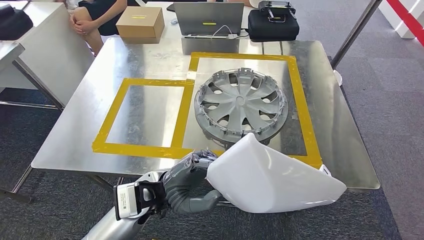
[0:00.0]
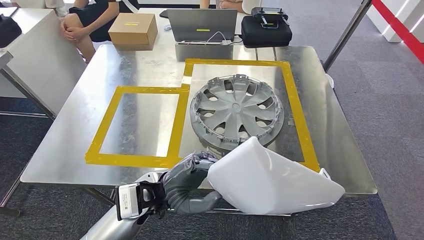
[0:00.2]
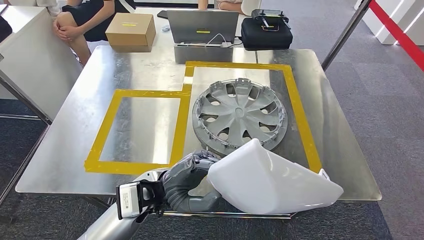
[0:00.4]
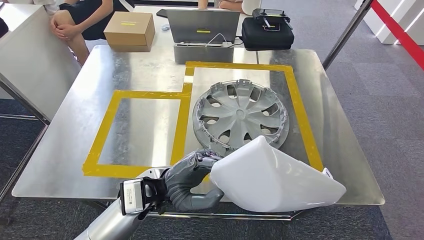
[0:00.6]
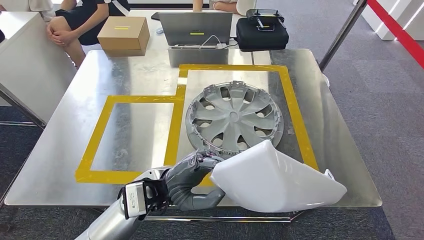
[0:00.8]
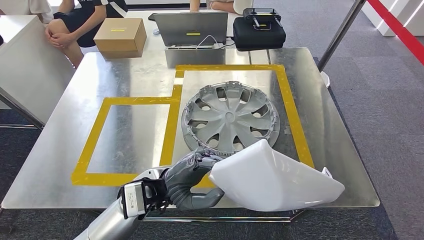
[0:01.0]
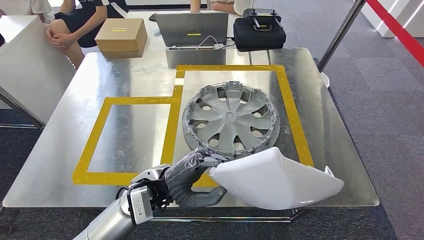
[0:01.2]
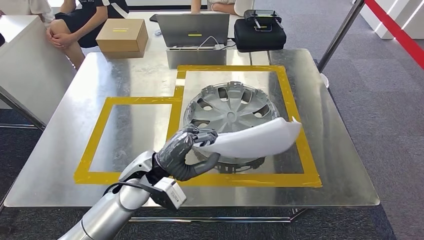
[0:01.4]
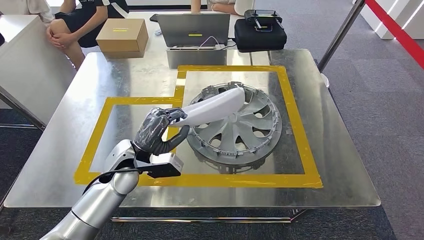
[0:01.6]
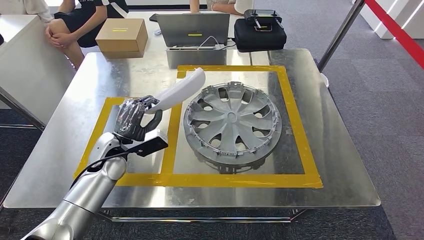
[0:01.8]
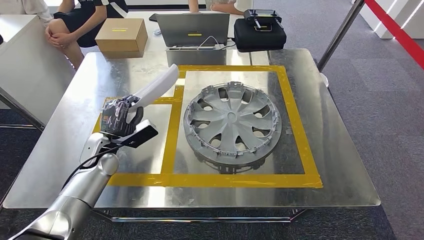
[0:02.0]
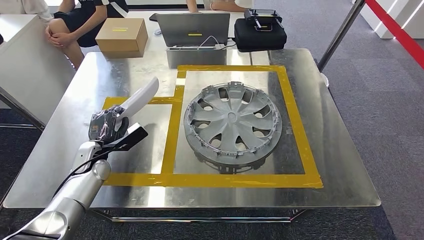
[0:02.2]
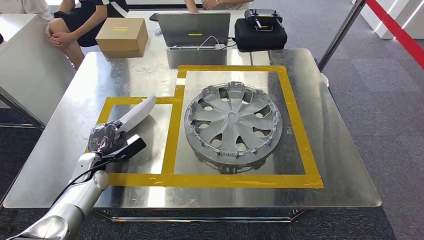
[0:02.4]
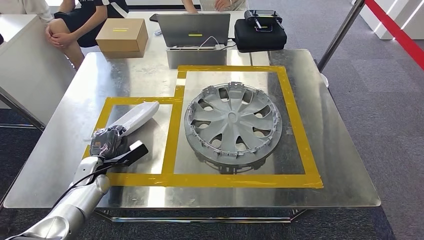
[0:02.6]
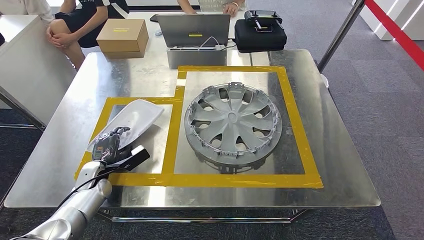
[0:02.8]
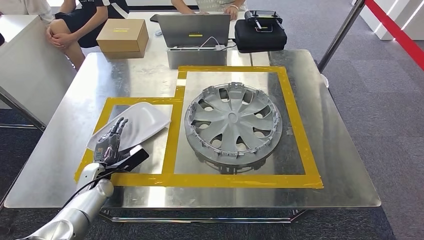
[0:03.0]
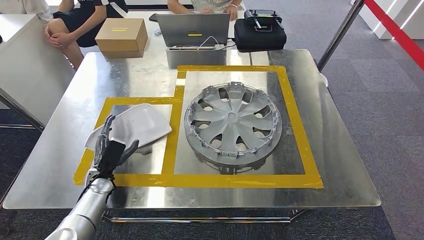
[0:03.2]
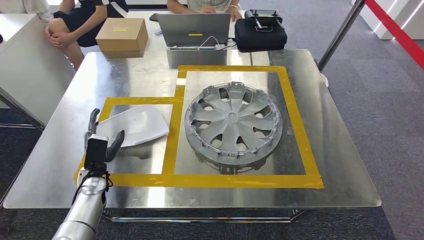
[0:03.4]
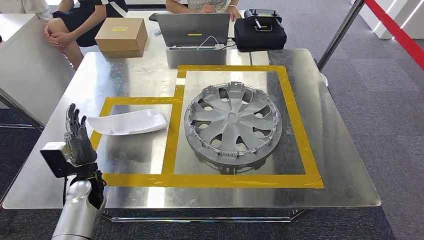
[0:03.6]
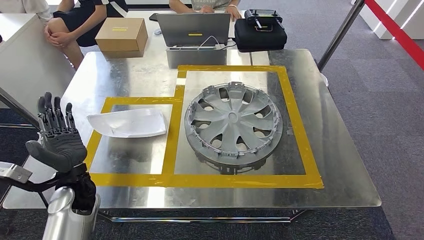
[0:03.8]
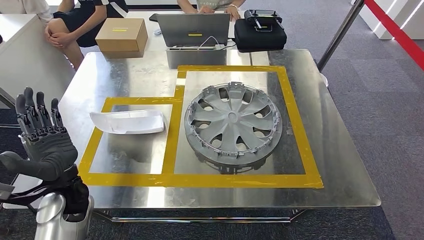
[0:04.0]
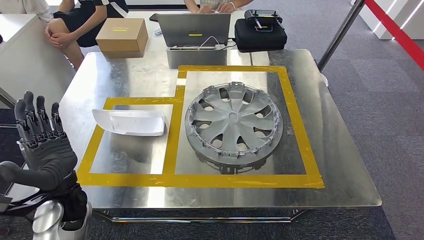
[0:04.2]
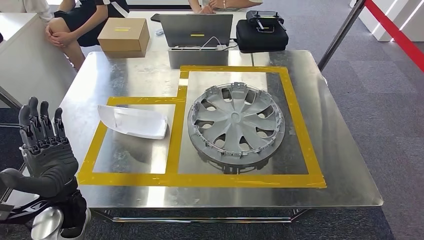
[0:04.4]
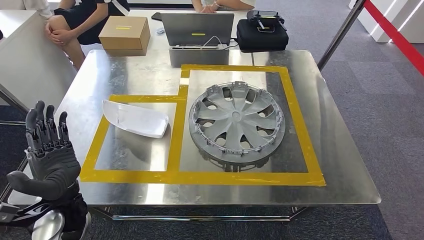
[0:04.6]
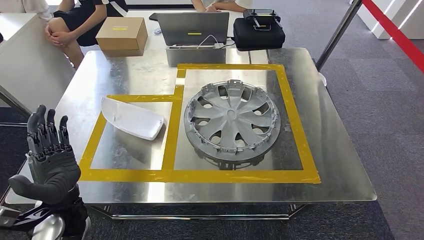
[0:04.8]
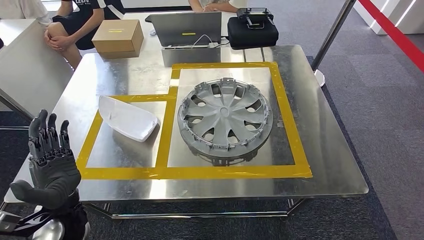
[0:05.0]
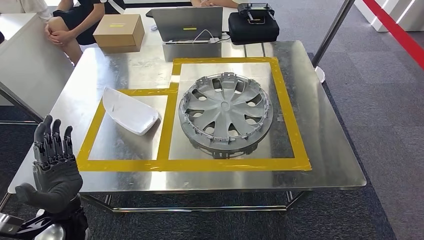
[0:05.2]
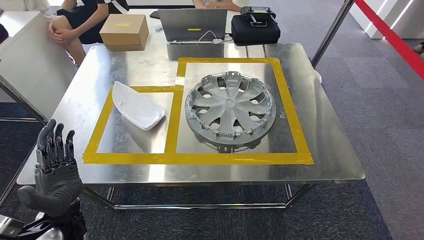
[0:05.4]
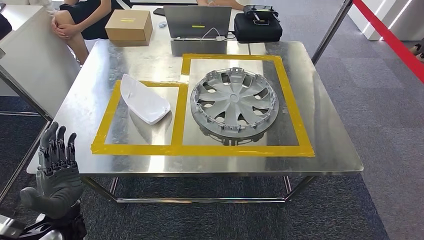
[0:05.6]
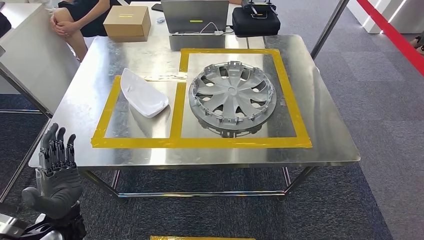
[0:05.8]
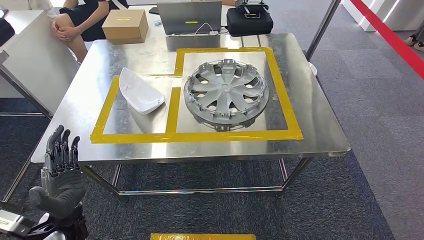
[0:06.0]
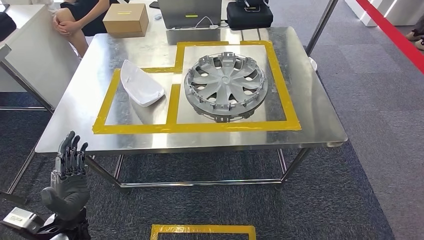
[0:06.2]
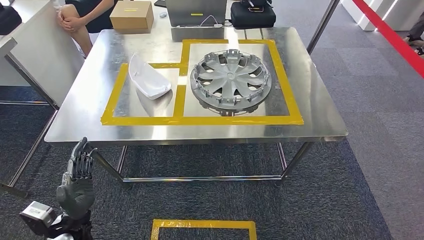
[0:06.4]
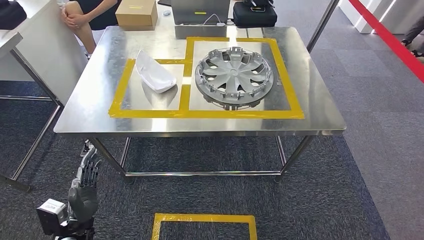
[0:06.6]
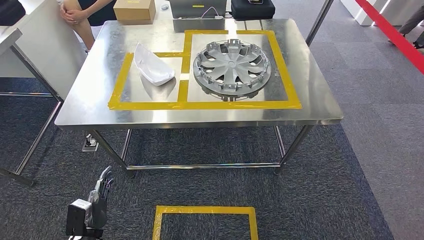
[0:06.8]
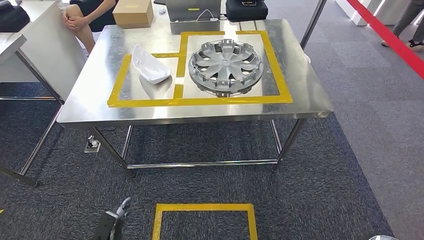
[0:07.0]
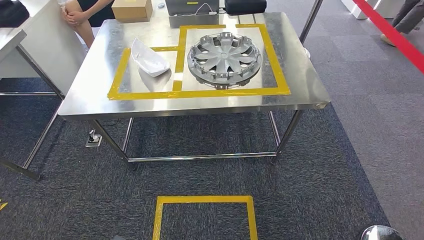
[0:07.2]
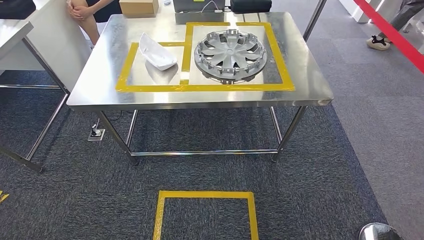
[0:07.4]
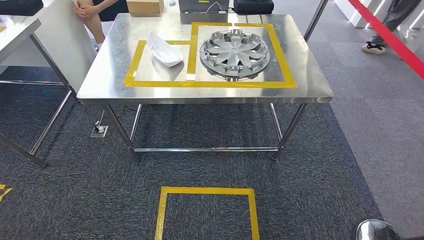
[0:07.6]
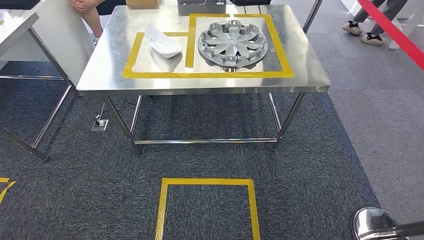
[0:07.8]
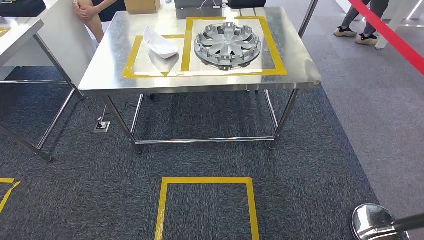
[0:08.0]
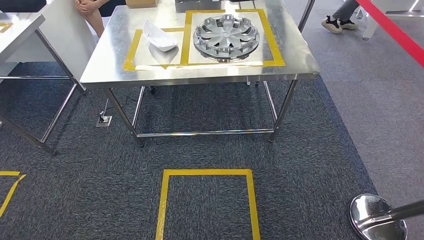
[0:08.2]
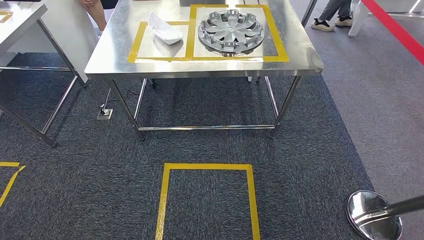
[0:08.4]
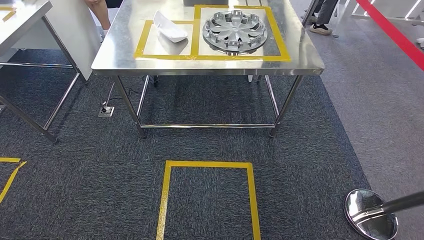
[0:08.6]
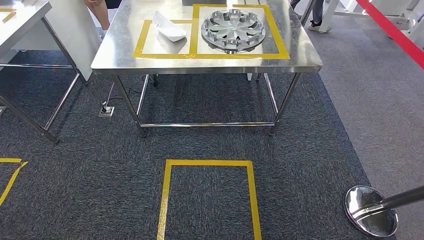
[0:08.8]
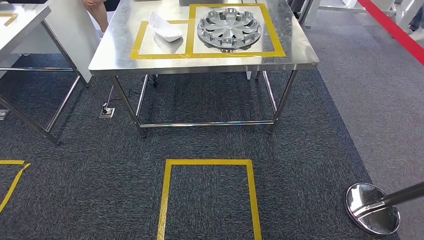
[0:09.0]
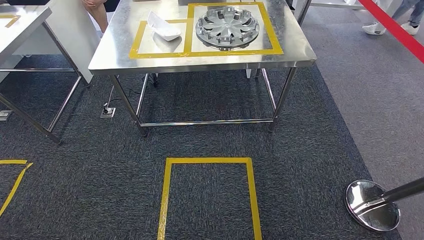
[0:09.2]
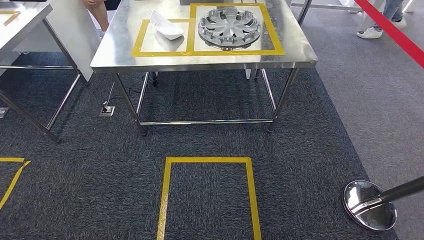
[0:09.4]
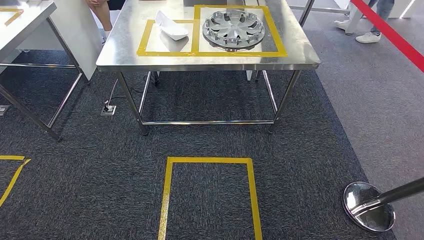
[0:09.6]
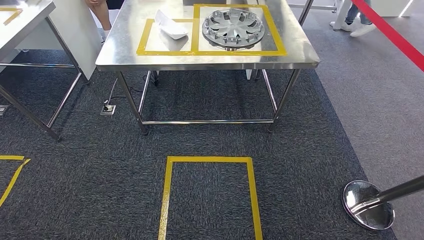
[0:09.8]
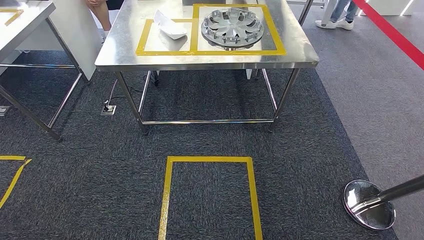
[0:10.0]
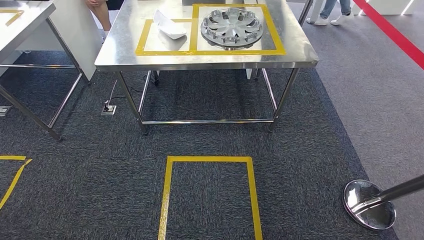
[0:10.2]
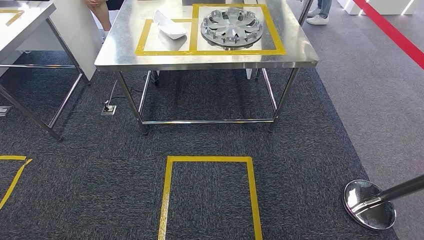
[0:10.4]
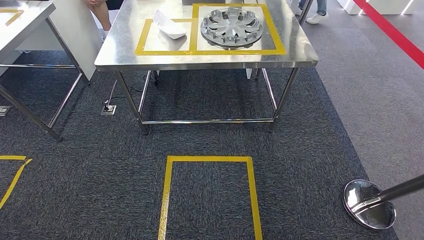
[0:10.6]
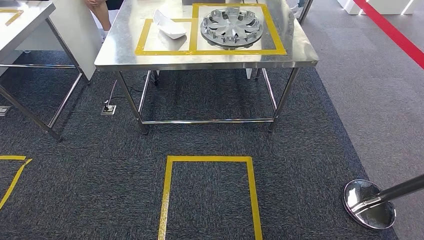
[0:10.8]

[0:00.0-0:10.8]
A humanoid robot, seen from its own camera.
Step, 0:00.0 to 0:04.8: Insert the small parts into the corresponding slots on the workbench.
Step, 0:05.0 to 0:10.8: Return to the initial position at the workbench.
0:01.6 to 0:03.0: The left hand moves to the left and downward, some 20 cm.
0:09.2 to 0:10.8: The hands move only a little.
